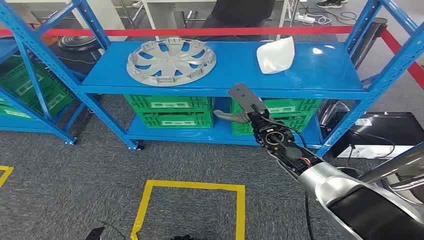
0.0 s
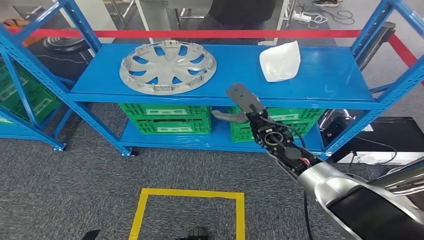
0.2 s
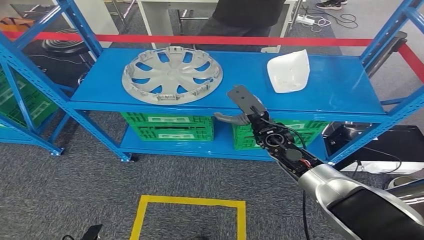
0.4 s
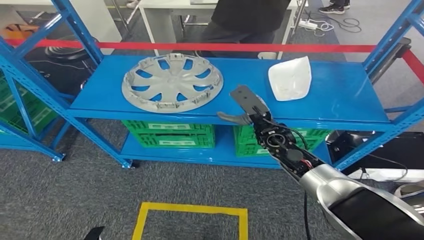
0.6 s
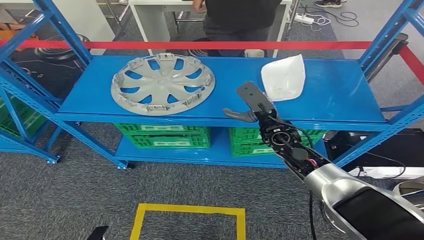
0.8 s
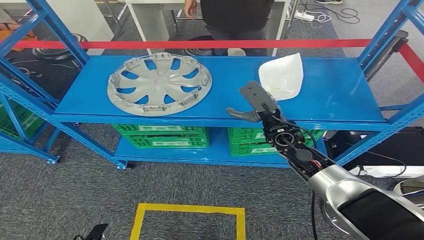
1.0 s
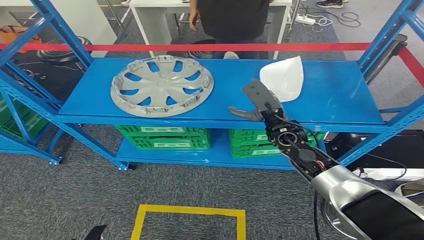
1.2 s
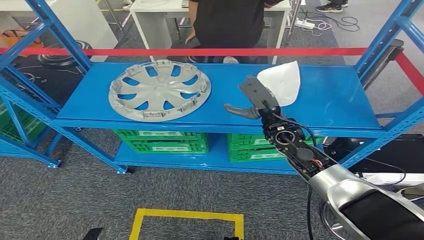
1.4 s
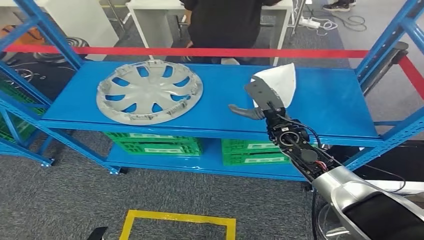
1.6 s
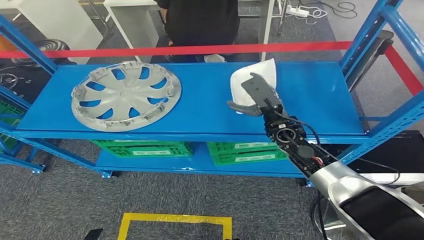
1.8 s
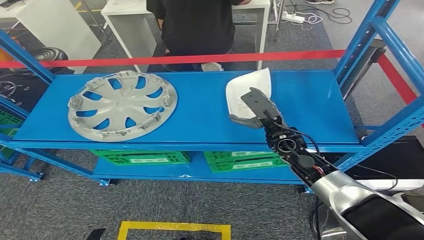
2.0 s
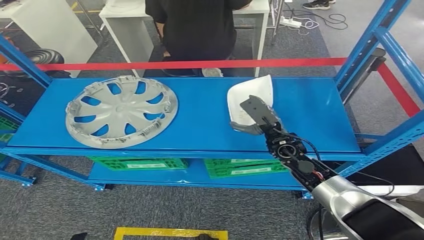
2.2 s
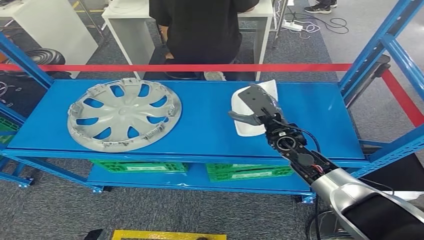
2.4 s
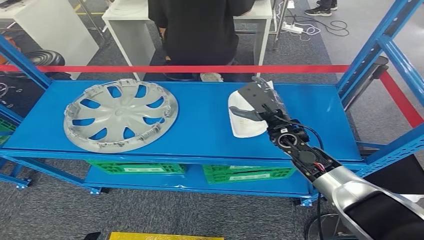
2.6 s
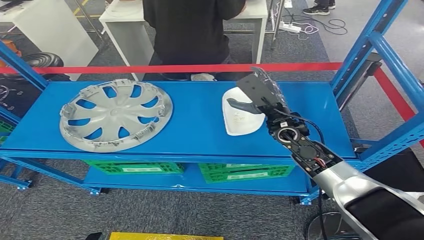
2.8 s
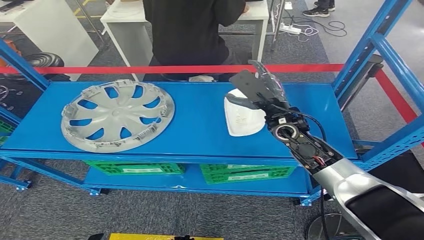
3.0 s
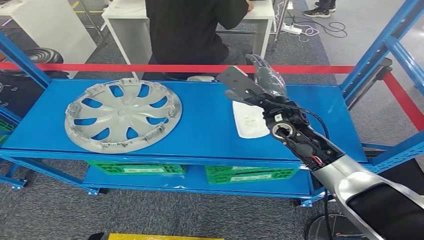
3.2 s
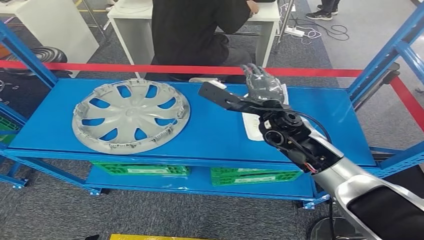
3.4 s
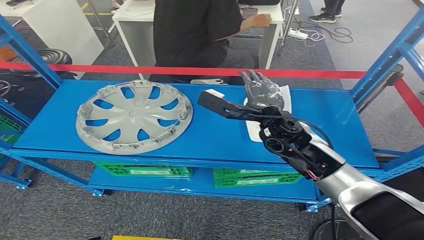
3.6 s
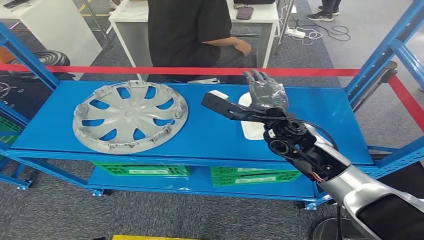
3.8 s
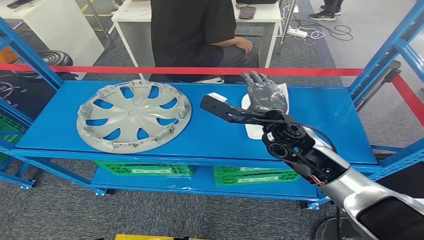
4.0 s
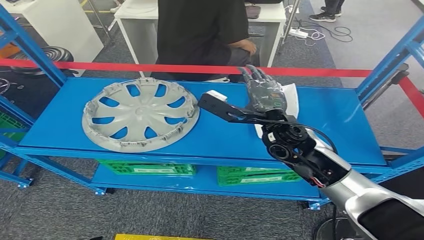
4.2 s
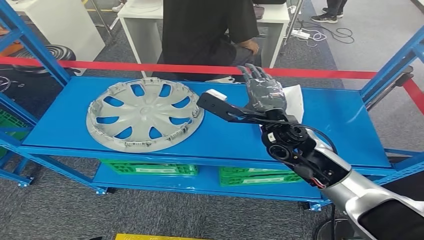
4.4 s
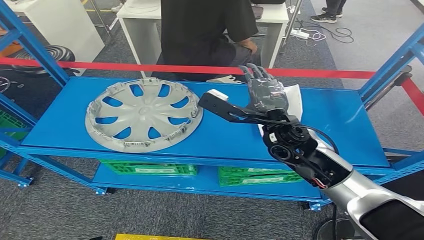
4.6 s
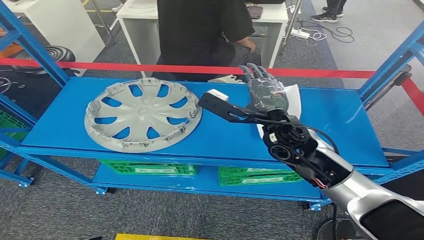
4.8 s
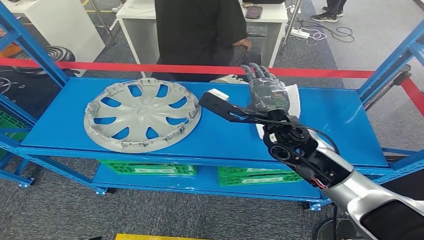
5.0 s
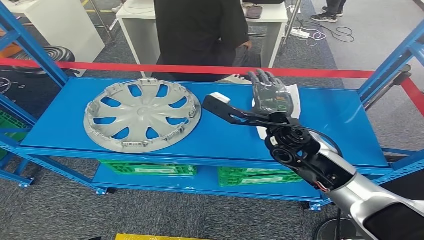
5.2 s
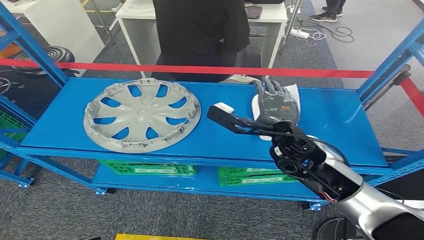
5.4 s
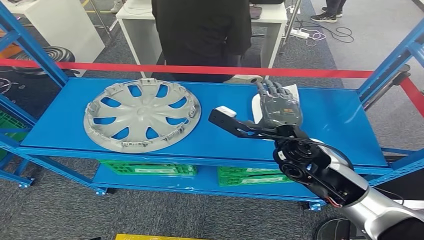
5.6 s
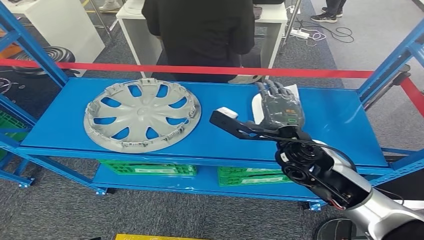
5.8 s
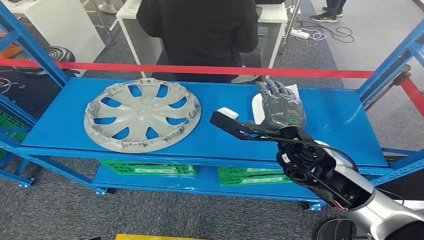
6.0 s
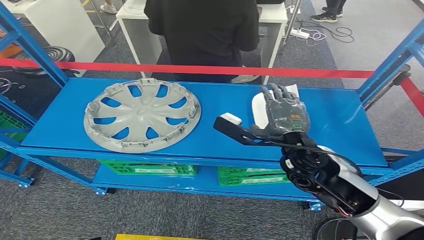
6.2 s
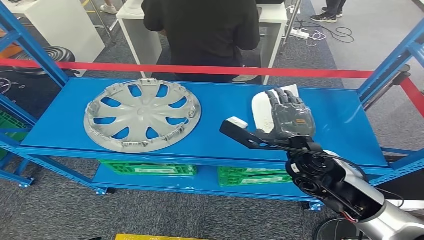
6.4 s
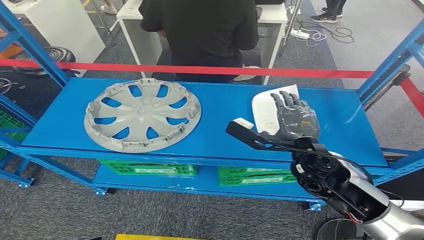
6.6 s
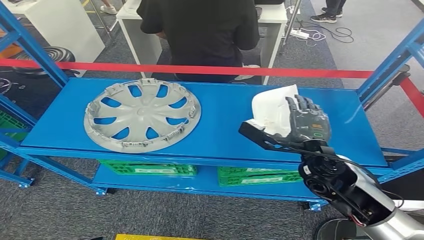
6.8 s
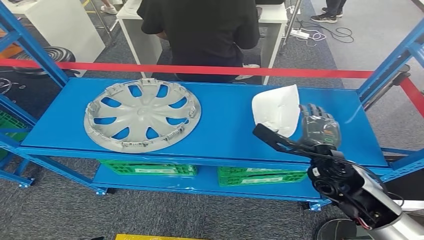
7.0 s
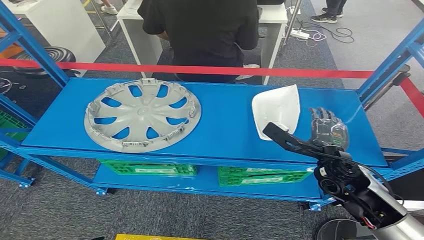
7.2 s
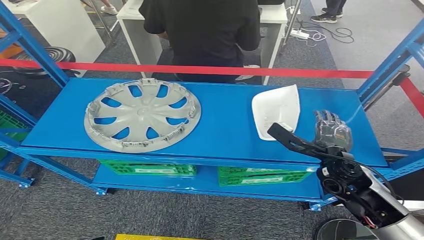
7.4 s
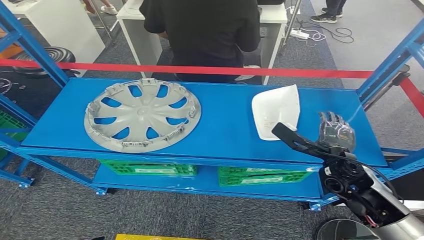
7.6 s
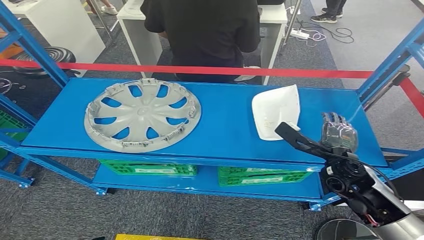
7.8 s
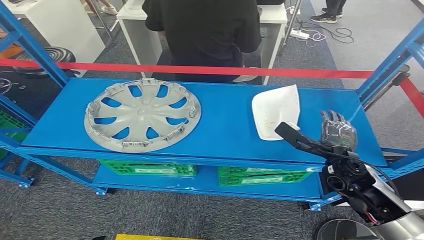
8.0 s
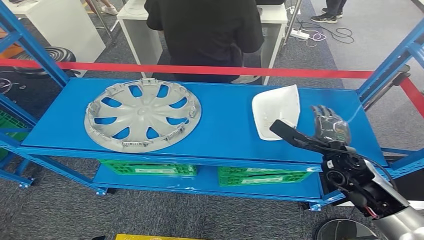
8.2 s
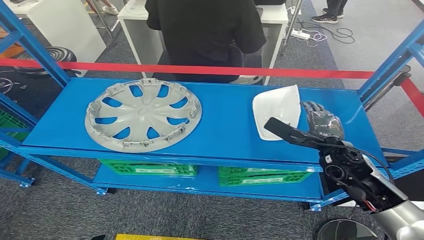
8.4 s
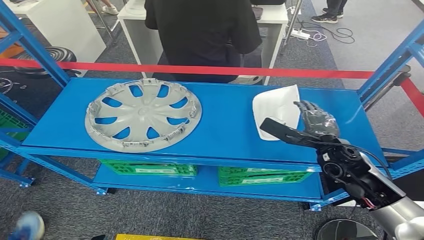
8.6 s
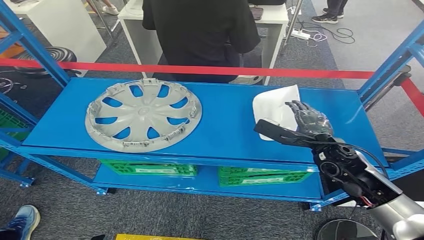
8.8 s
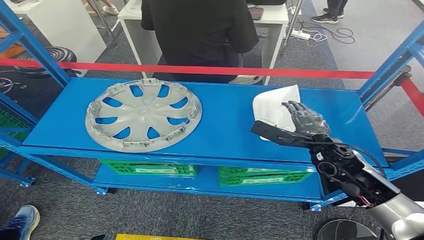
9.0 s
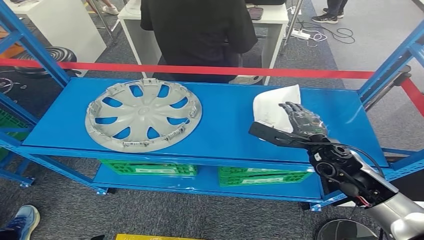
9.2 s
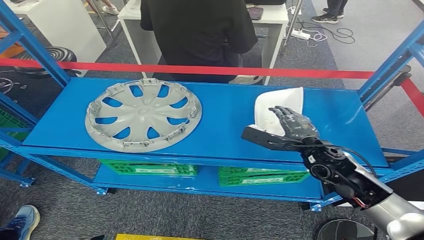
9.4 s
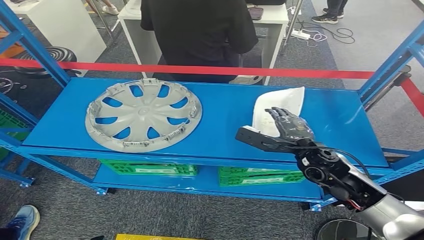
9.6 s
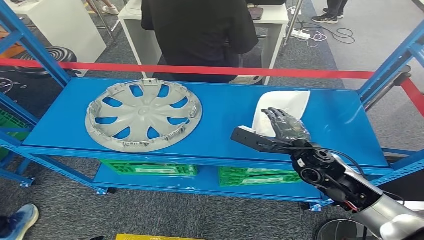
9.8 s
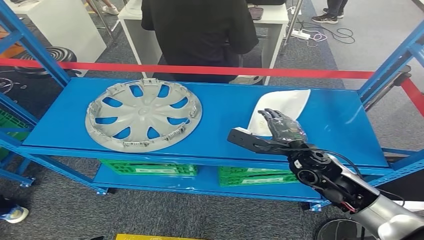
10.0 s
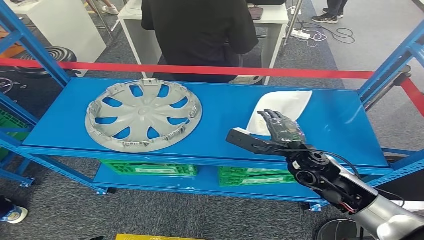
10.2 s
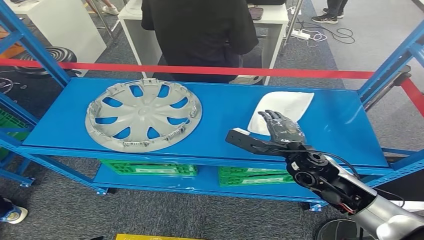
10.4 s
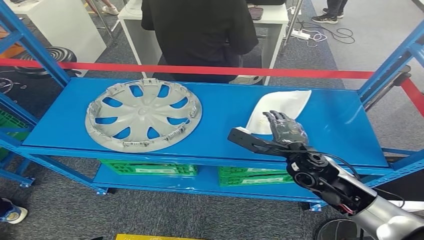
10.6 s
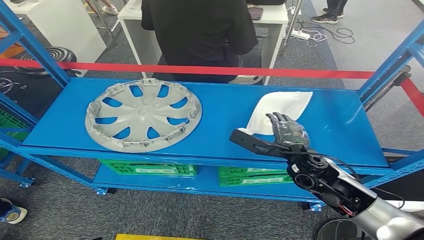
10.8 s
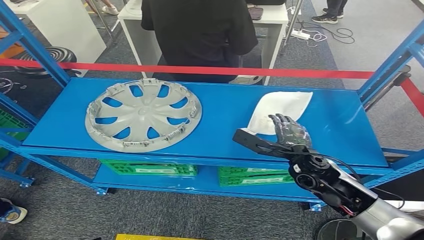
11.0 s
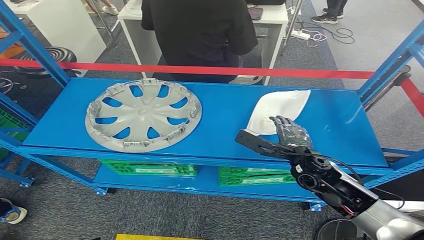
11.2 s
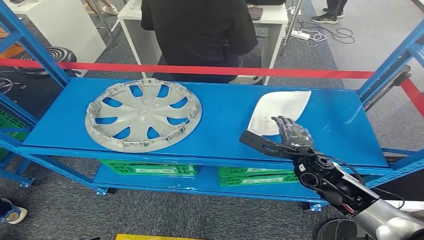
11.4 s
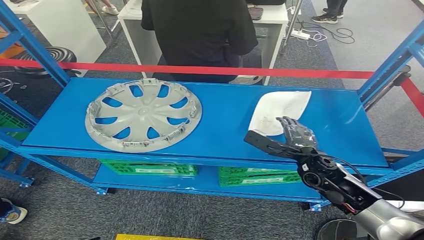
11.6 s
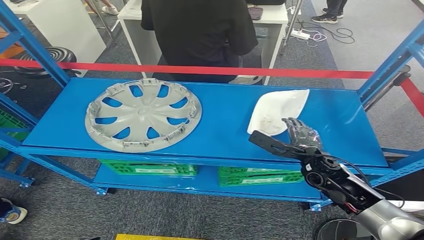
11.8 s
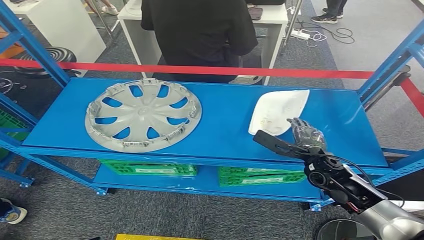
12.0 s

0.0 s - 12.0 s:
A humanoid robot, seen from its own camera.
4.4 s - 6.0 s: The right hand moves about 5 cm.
6.0 s - 7.6 s: The right hand shifts some 15 cm to the right and downward.
9.0 s - 10.4 s: The right hand shifts approximately 5 cm to the left.
10.4 s - 12.0 s: The right hand moves to the right and downward, about 10 cm.

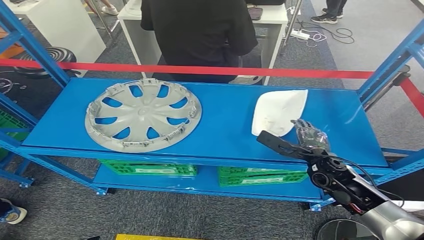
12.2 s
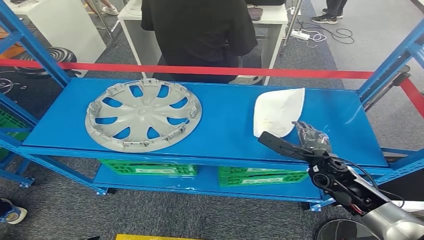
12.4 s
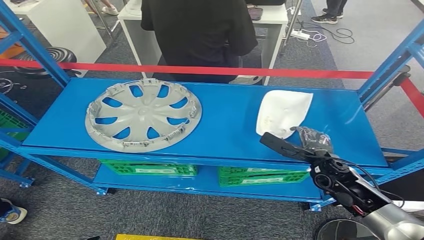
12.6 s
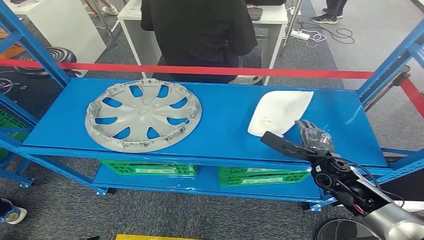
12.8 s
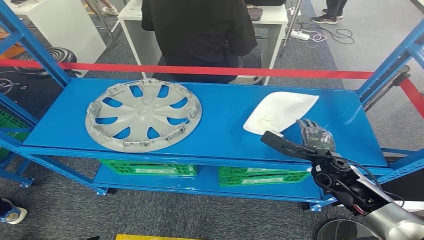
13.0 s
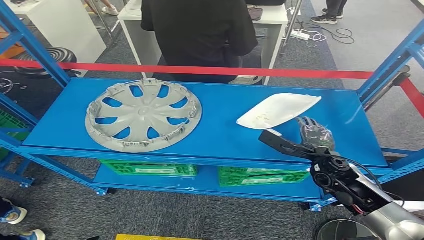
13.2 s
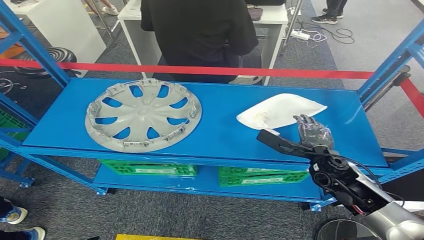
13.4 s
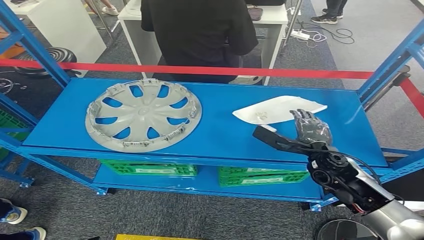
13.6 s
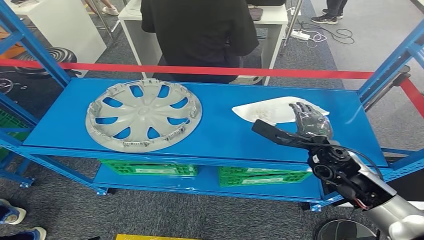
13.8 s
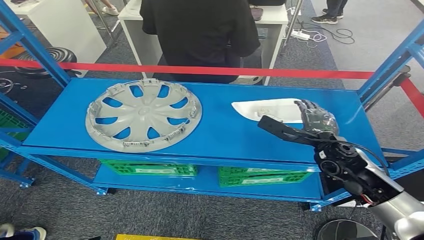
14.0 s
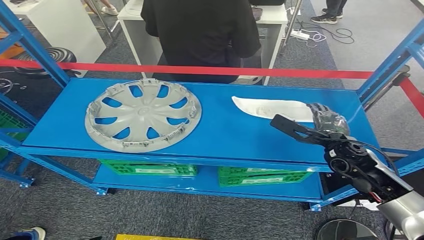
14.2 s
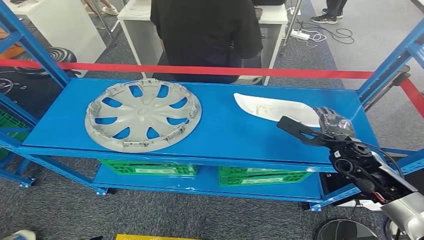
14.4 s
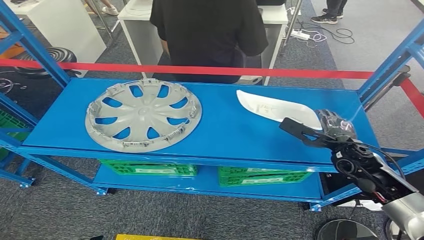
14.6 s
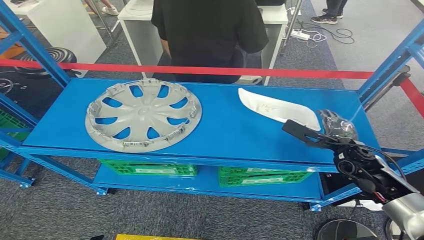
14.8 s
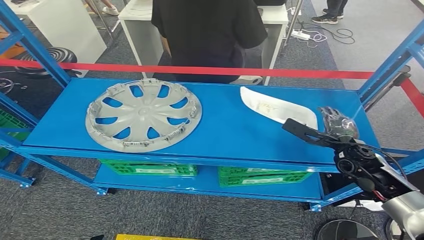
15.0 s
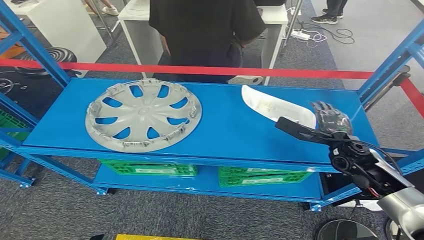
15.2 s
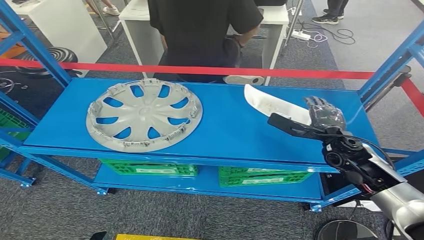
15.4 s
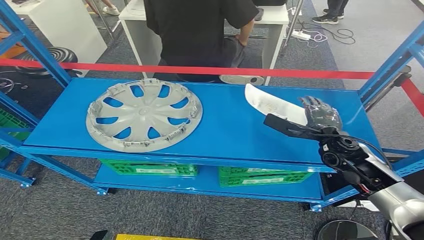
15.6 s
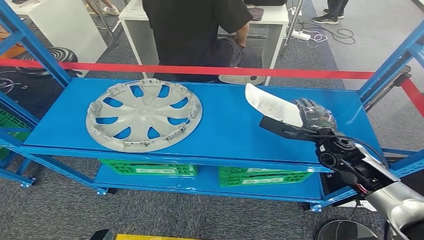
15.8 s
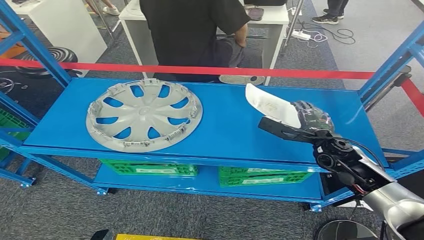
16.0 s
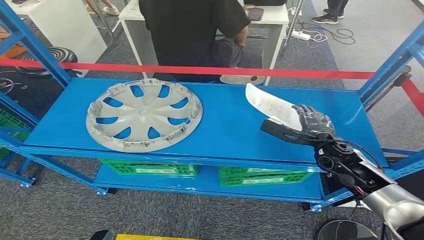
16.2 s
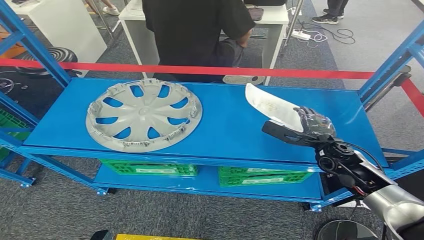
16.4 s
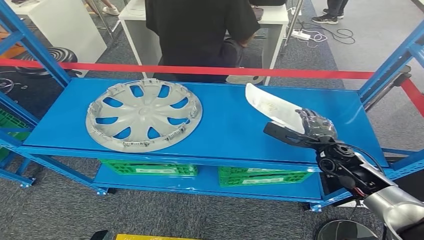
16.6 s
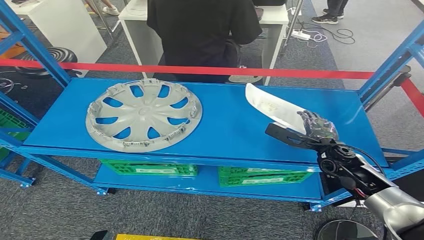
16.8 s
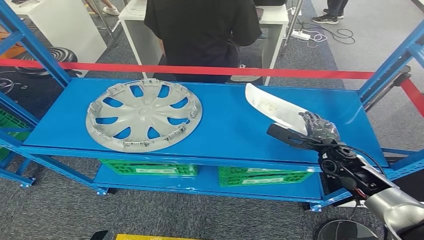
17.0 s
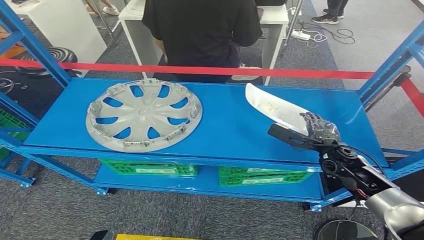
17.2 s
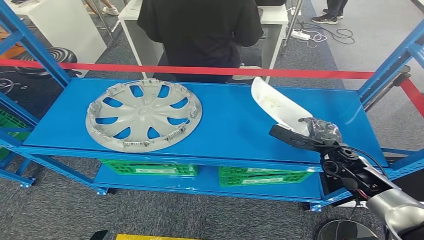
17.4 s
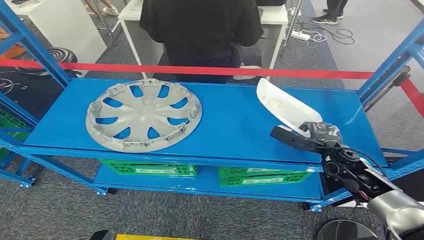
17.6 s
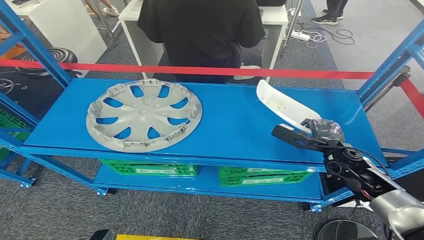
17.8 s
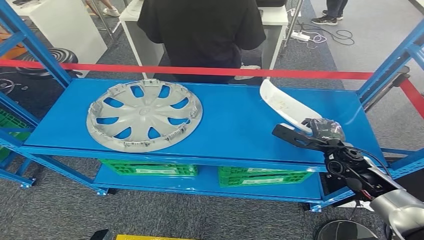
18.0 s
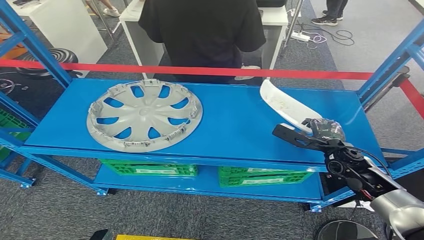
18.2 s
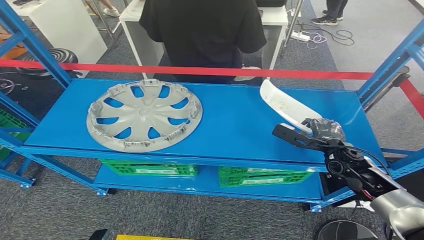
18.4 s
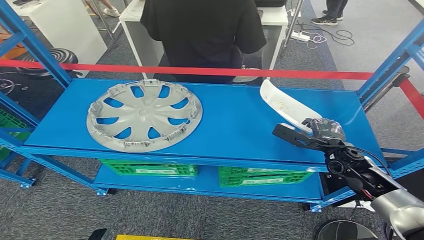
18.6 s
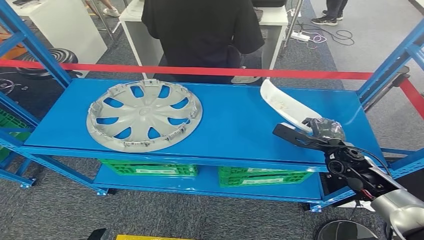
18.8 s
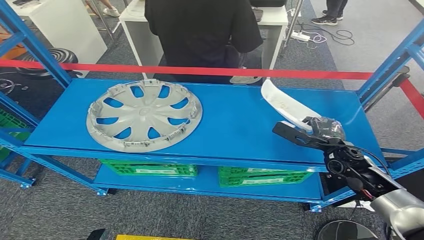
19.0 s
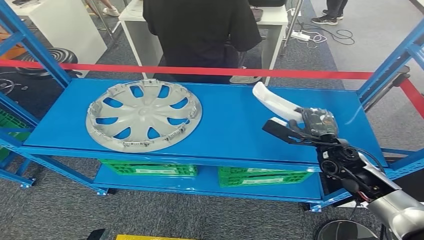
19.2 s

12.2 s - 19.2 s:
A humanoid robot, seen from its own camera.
12.2 s - 13.6 s: There are only small adjustments of the hands.
13.6 s - 15.0 s: The right hand moves to the right, about 5 cm.
15.0 s - 19.2 s: The hands stay close to where they were, moving slightly.
